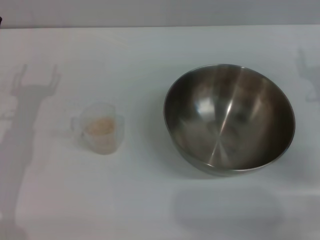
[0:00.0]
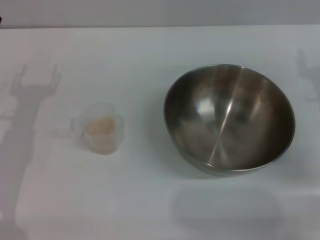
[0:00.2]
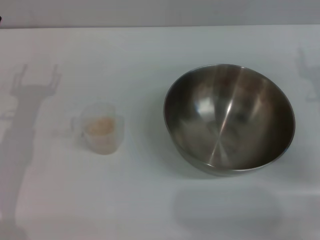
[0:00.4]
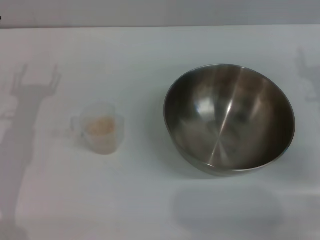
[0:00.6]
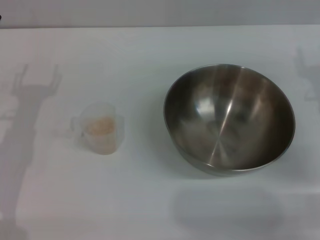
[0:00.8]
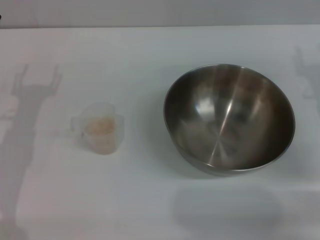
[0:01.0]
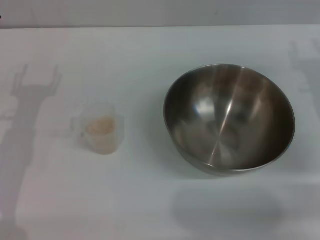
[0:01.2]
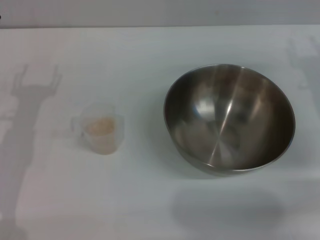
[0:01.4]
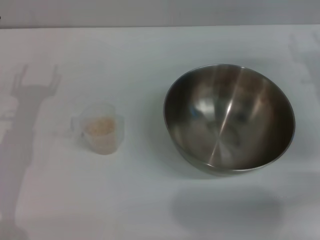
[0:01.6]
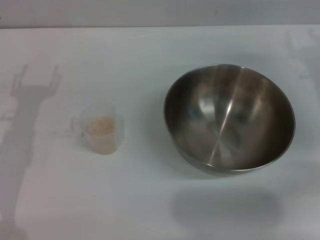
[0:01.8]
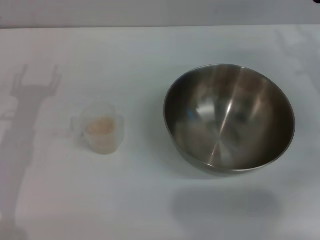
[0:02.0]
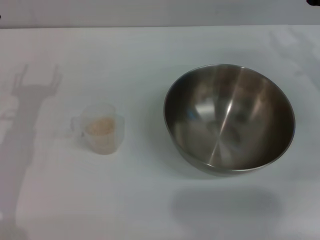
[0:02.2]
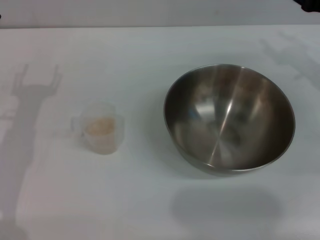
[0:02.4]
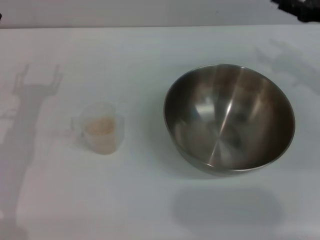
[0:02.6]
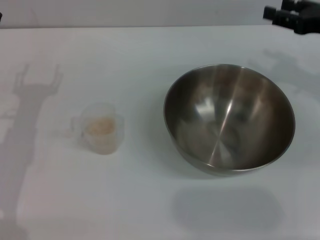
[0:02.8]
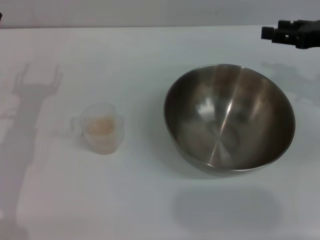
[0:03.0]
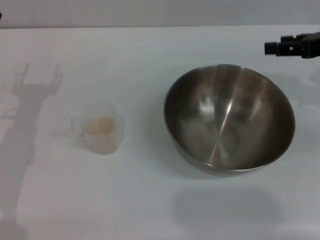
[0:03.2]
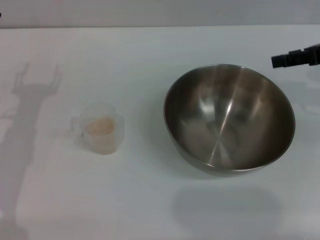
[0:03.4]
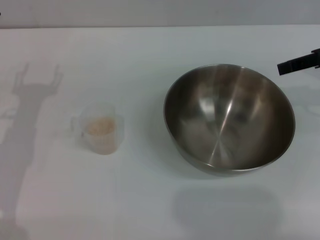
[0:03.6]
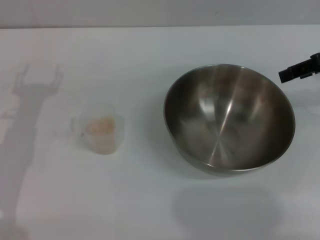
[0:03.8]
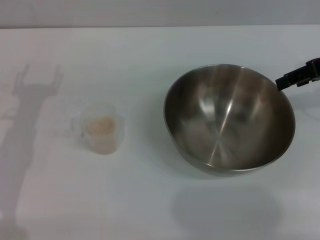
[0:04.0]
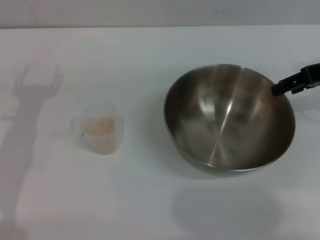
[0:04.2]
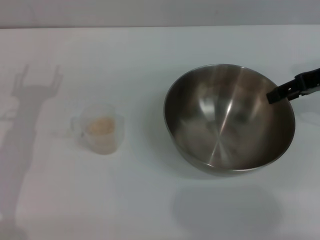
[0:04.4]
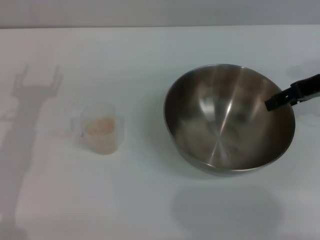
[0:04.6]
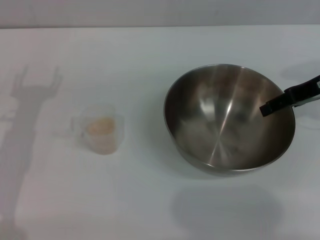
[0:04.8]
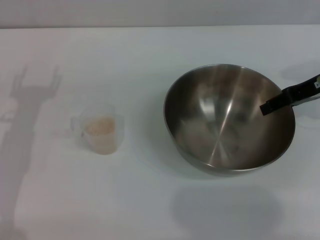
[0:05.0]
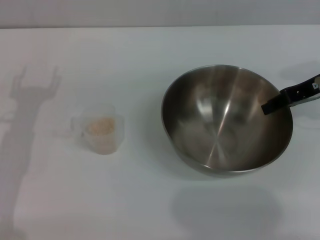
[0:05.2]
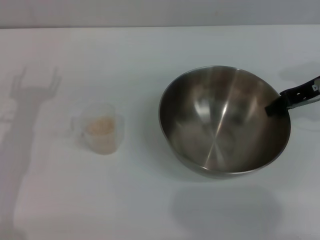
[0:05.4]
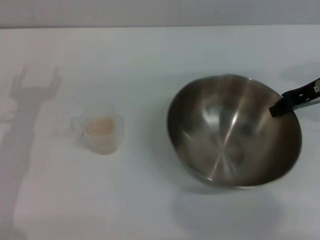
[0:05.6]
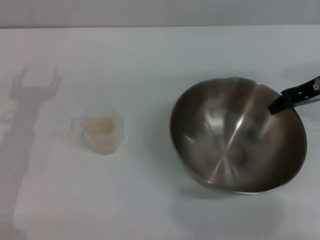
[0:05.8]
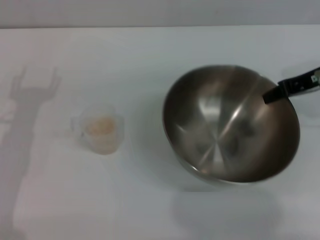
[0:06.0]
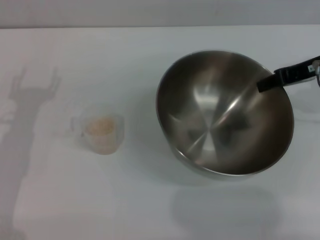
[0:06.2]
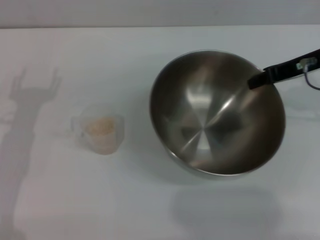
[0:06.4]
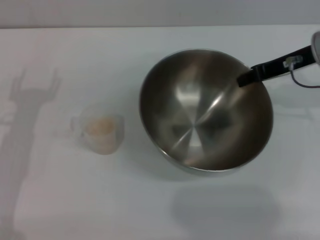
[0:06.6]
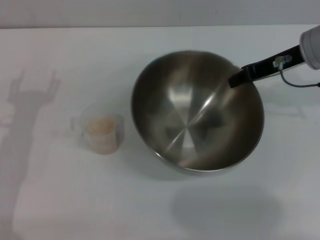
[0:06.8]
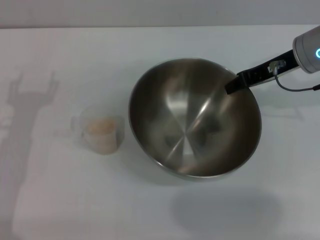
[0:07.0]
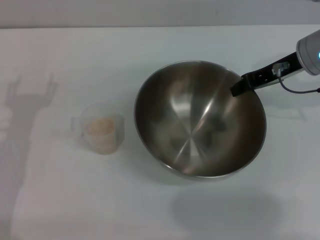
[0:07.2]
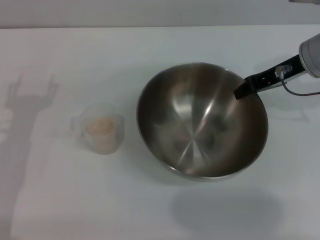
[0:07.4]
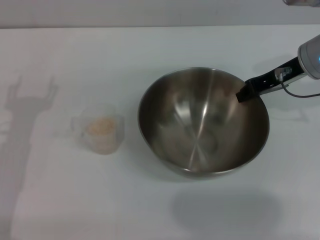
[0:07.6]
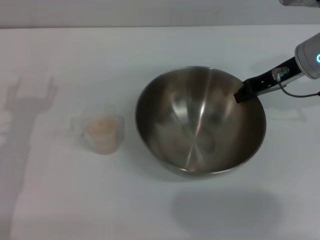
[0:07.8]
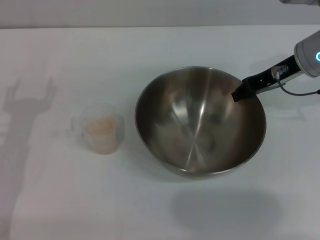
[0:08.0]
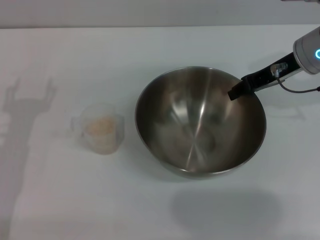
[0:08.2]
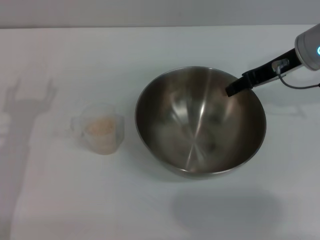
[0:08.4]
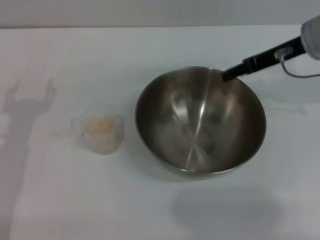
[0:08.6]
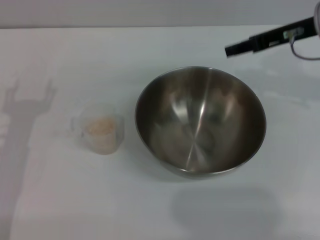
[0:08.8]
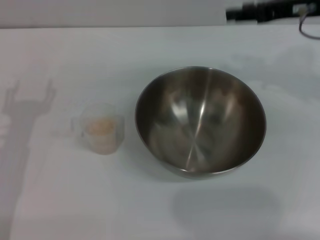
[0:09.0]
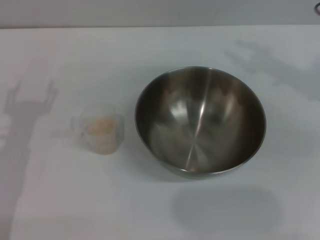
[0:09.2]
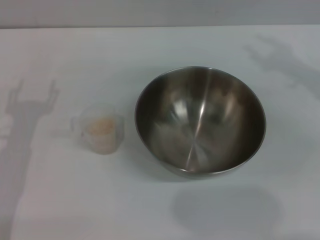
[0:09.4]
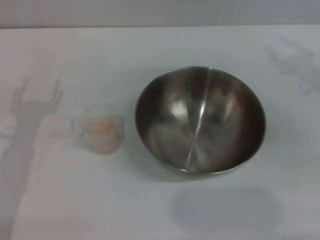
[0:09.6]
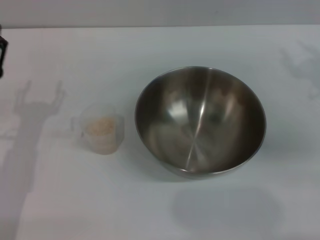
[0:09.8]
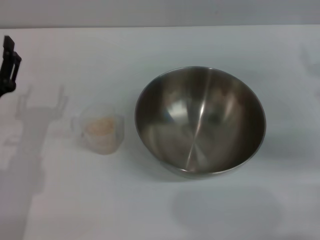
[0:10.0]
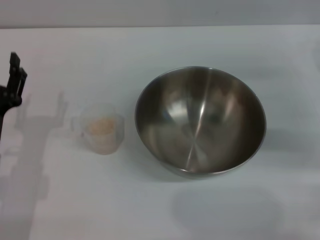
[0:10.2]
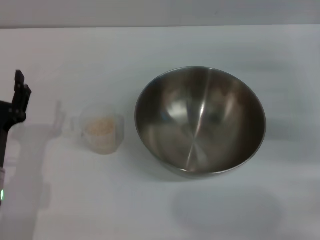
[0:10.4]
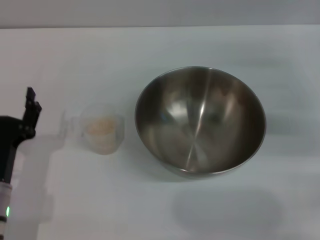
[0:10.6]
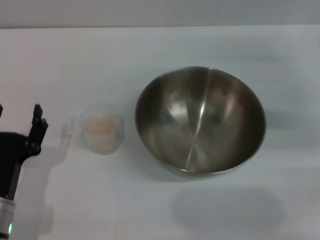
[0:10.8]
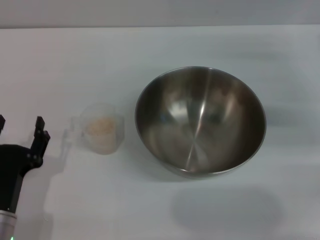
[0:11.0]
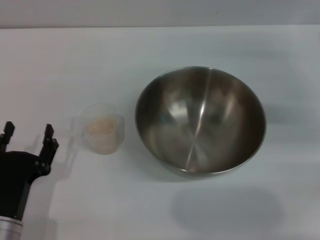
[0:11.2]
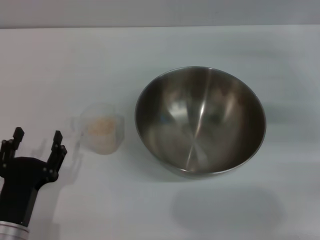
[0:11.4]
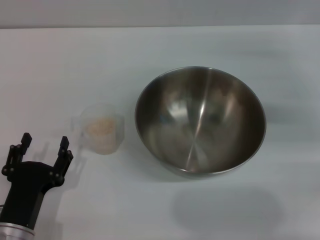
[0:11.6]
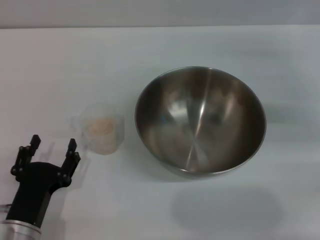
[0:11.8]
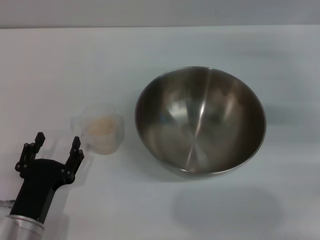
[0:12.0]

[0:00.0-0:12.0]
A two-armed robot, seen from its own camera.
Task of the whole recording: Place the bowl in the middle of the table with one hand and pour the rice from the grain cup into it with the other hand.
Step, 0:00.0 to 0:06.6: Pick up the bowl with the right gripper.
Step, 0:06.8 to 0:09.0: Place the bowl in the center of view with the right gripper.
0:01.6 to 0:03.0: The right gripper travels upward by some 10 cm.
0:04.4 to 0:06.0: The right gripper closes.
0:06.0 to 0:07.6: The right gripper shifts by about 5 cm.
0:07.6 to 0:09.0: The right gripper goes some 5 cm upward, and opens its fingers.
0:09.0 to 0:10.4: The right gripper goes about 15 cm downward and to the right; the left gripper moves downward, about 5 cm.
0:10.4 to 0:12.0: The left gripper moves backward, roughly 5 cm.

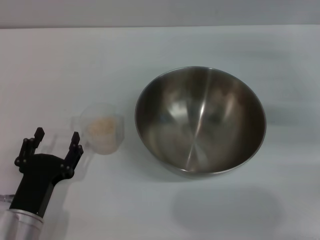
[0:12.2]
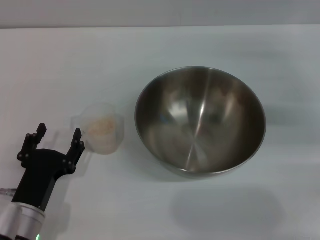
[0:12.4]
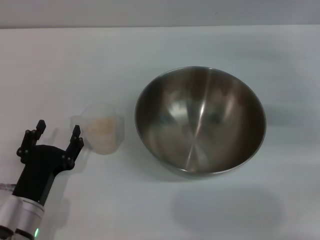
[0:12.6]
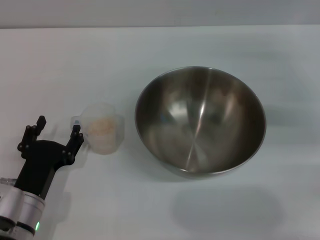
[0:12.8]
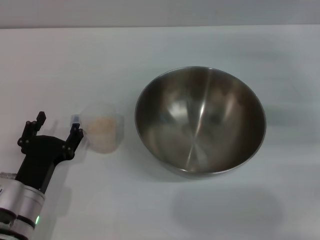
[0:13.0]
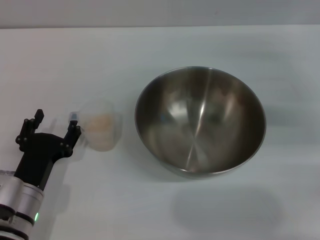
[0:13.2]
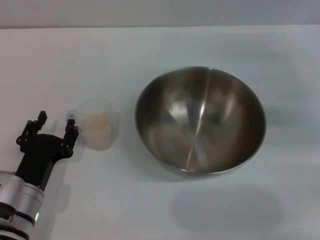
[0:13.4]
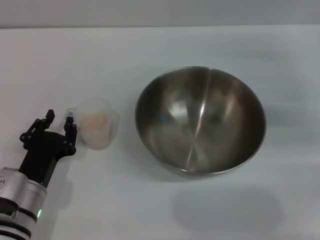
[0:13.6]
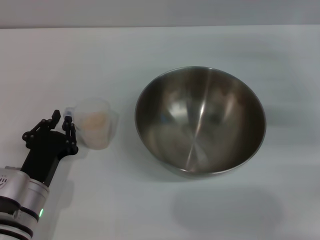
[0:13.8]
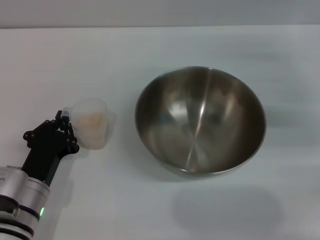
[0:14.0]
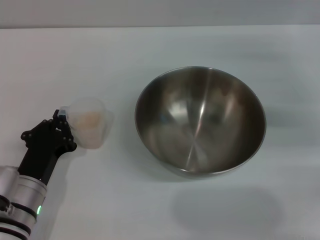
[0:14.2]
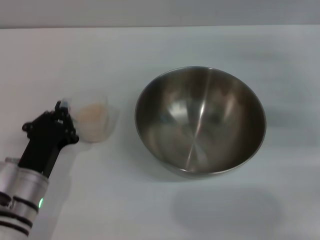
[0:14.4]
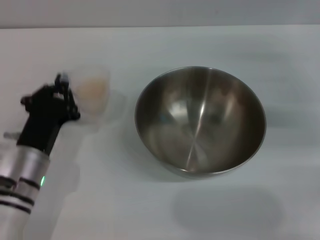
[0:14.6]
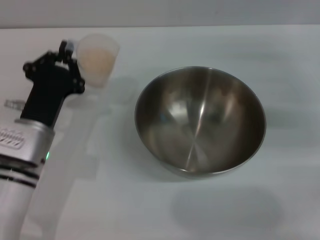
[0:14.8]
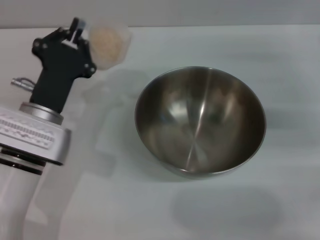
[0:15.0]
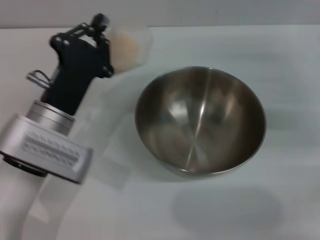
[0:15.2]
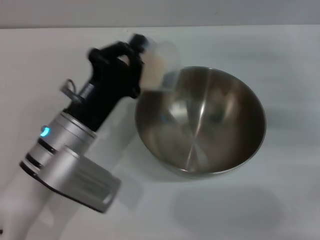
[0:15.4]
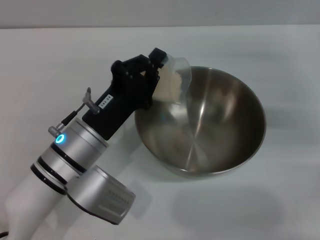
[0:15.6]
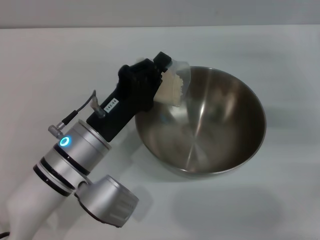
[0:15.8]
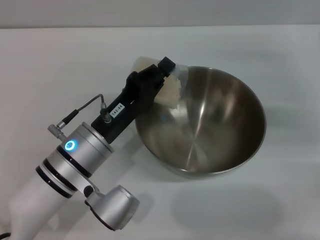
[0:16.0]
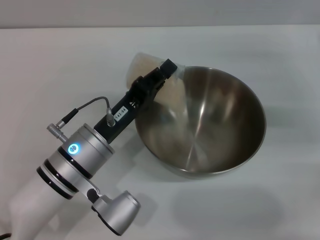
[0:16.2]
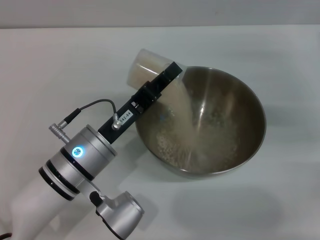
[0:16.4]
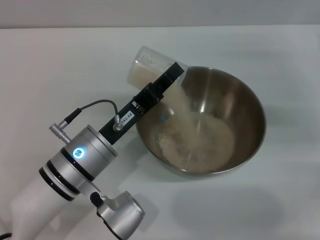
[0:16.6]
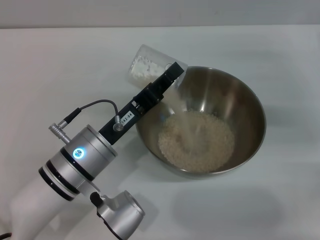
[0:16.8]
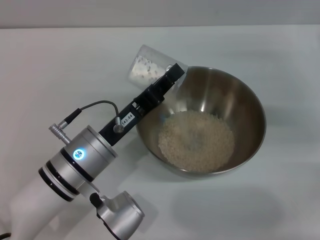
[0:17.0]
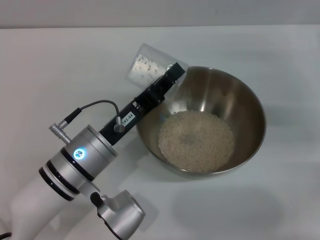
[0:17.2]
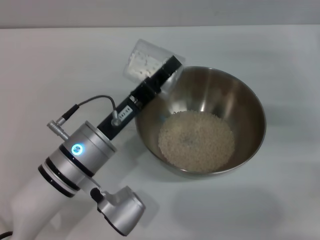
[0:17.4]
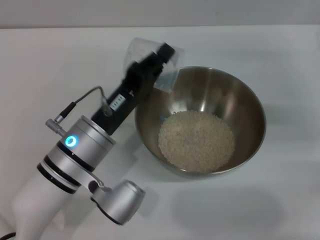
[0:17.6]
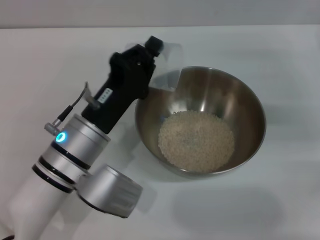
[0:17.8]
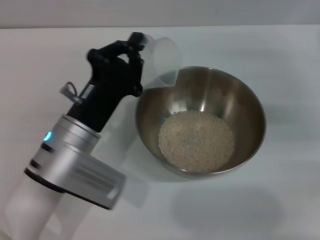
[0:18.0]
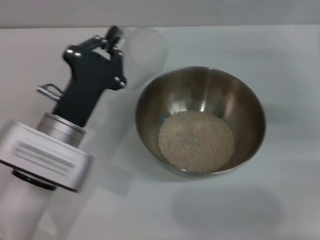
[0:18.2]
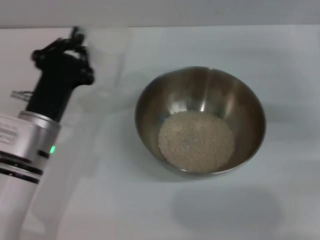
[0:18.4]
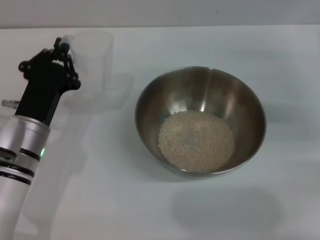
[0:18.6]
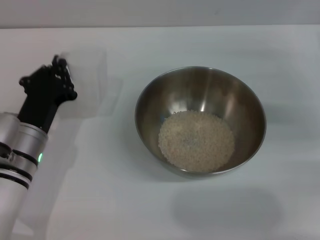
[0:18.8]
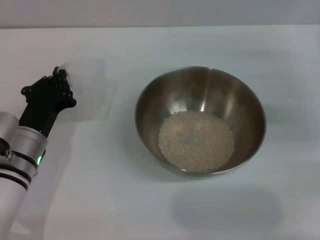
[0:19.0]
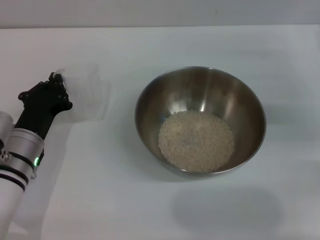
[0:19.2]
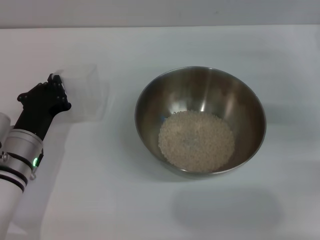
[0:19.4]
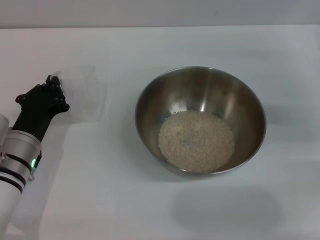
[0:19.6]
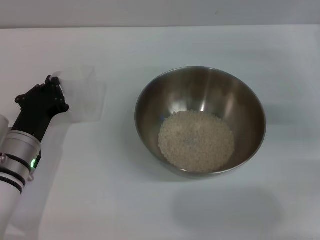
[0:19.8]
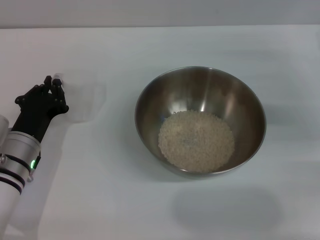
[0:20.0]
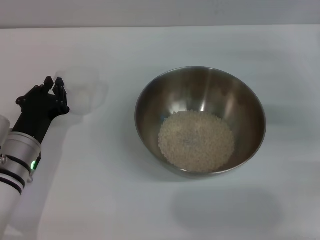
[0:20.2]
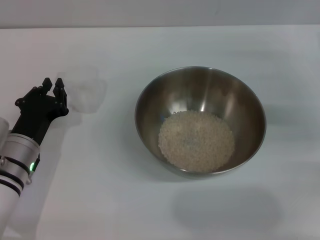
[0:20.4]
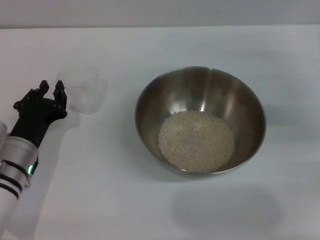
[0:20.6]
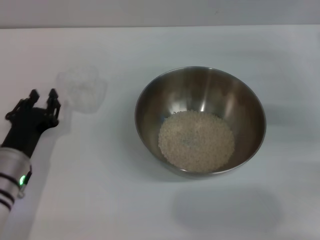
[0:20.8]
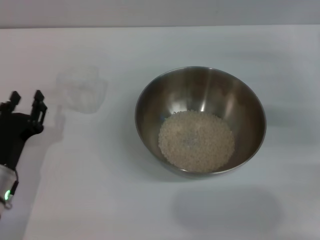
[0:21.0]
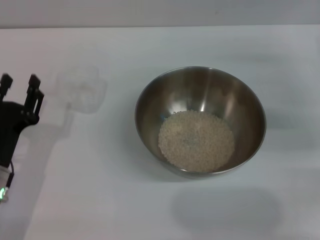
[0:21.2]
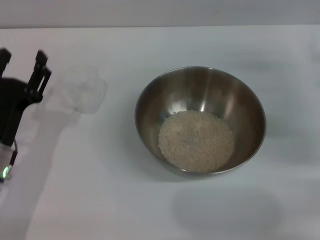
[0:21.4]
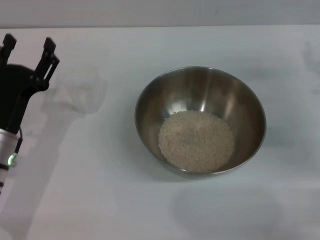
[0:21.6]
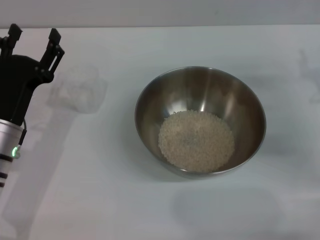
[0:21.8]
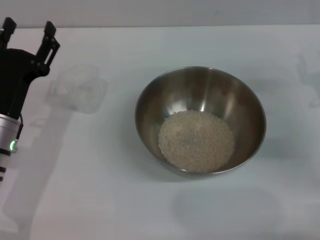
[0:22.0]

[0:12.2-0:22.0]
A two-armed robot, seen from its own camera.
Task of the whole recording: Place the bowl in the middle of the table with one hand and pour the rice from the grain cup into it with the other hand.
Step, 0:12.2 to 0:14.6: Pick up the cup with rice in it with the left gripper.
Step, 0:15.0 to 0:17.4: Pour the rice from the cup into the bowl with the left gripper.
Step, 0:17.6 to 0:20.0: Place the cup on the table with the left gripper.
0:12.2 to 0:13.6: The grippers stay close to where they were, moving slightly.
0:13.6 to 0:15.0: The left gripper is displaced forward and upward by some 10 cm, and closes its fingers.
0:15.0 to 0:16.4: The left gripper is displaced to the right by about 5 cm.
0:17.8 to 0:19.2: The left gripper is displaced to the left and downward by roughly 10 cm.
0:19.2 to 0:20.6: The grippers make only small movements.
0:20.6 to 0:22.0: The right gripper travels downward and backward by approximately 10 cm. Meanwhile the left gripper opens its fingers.
